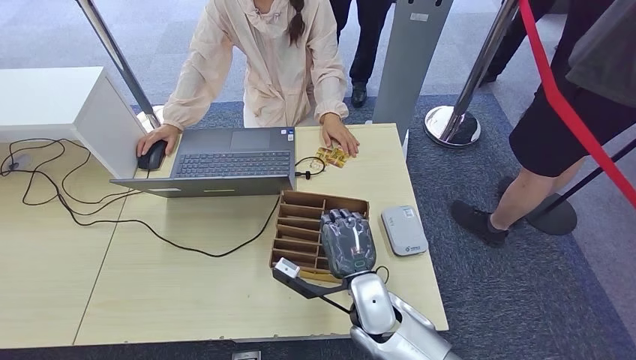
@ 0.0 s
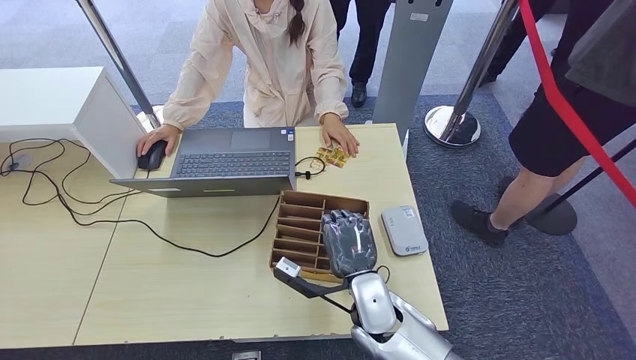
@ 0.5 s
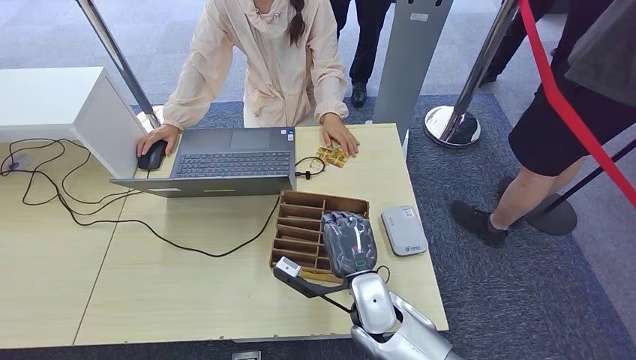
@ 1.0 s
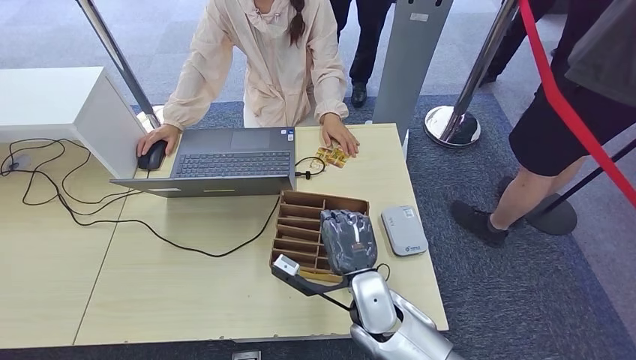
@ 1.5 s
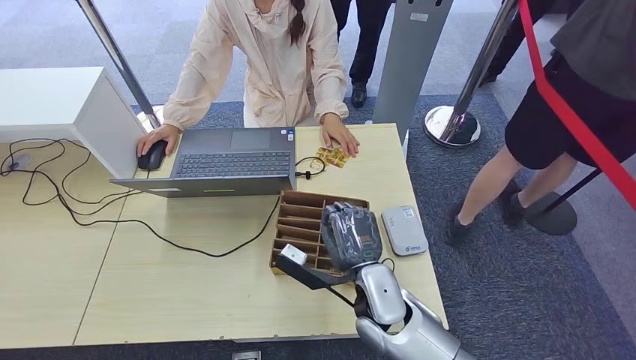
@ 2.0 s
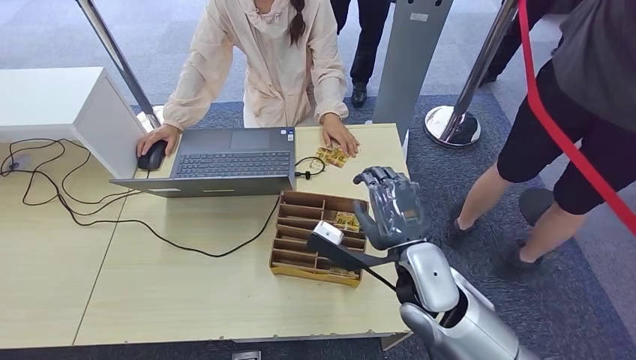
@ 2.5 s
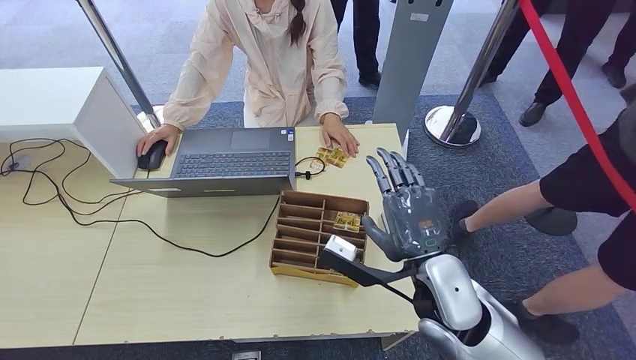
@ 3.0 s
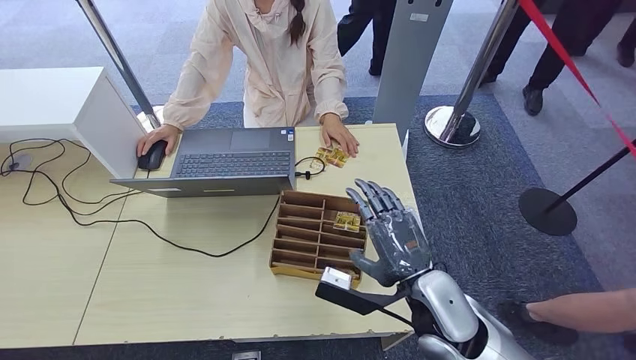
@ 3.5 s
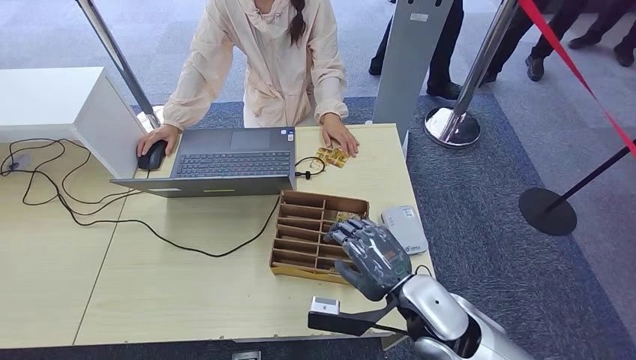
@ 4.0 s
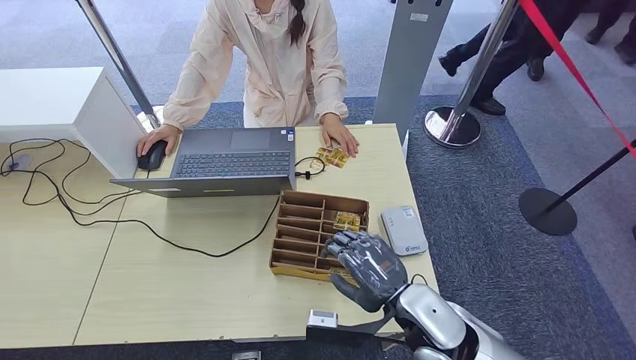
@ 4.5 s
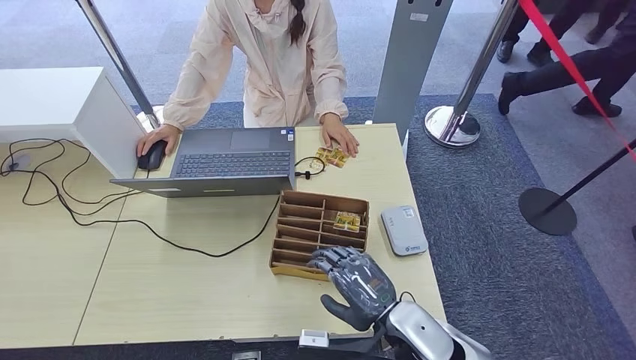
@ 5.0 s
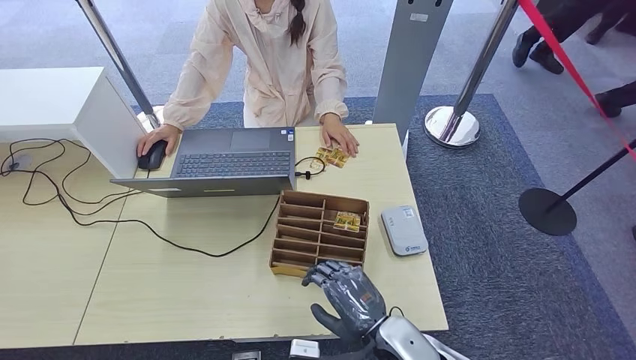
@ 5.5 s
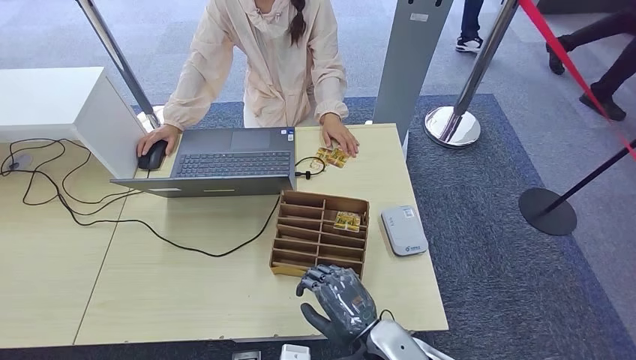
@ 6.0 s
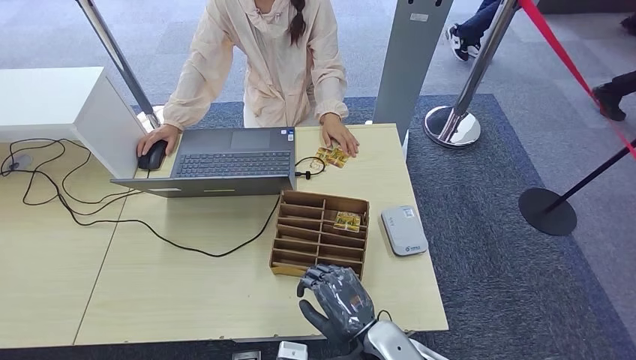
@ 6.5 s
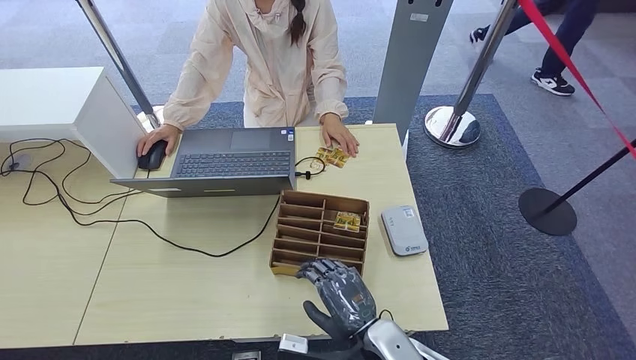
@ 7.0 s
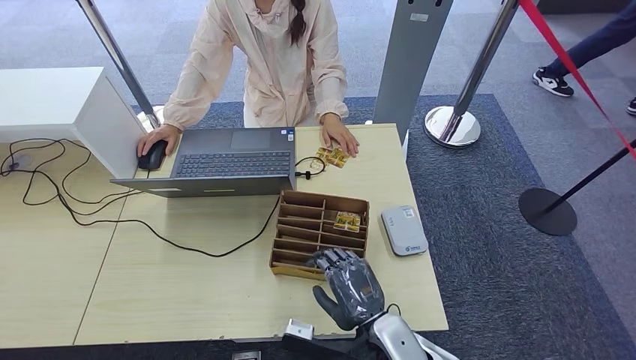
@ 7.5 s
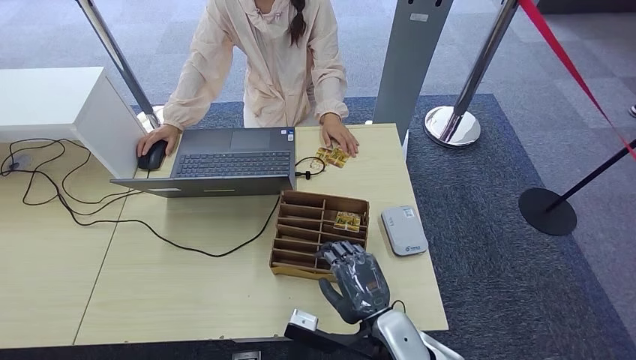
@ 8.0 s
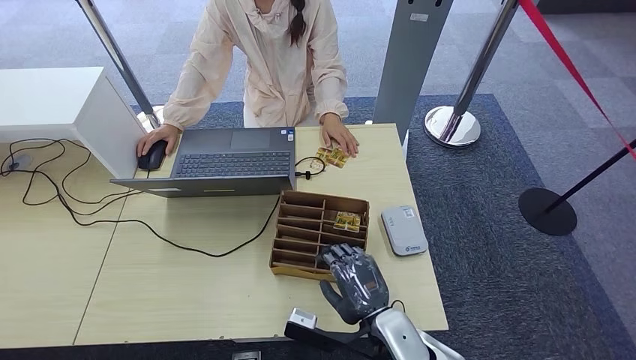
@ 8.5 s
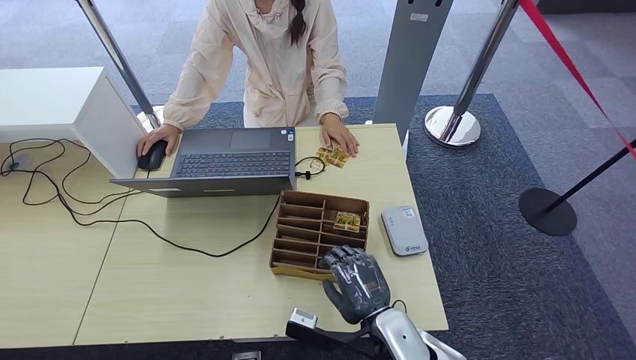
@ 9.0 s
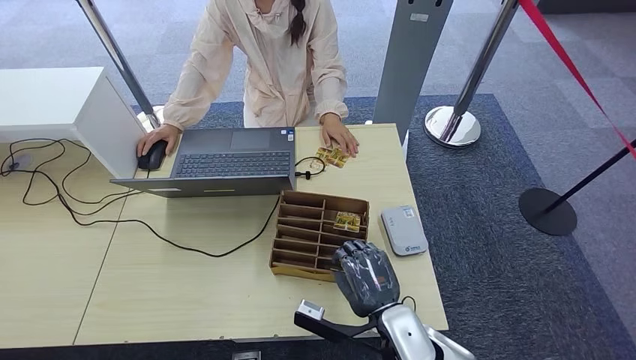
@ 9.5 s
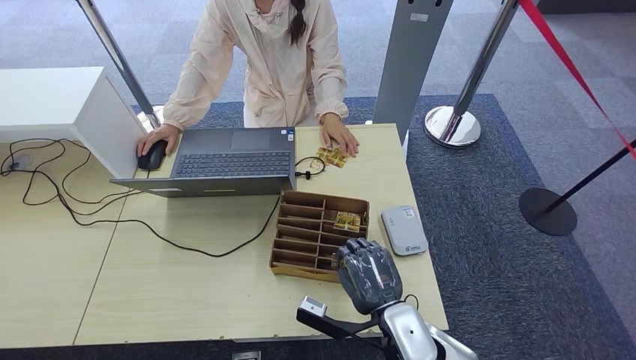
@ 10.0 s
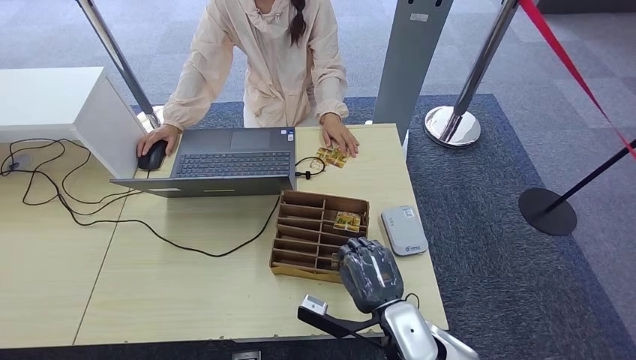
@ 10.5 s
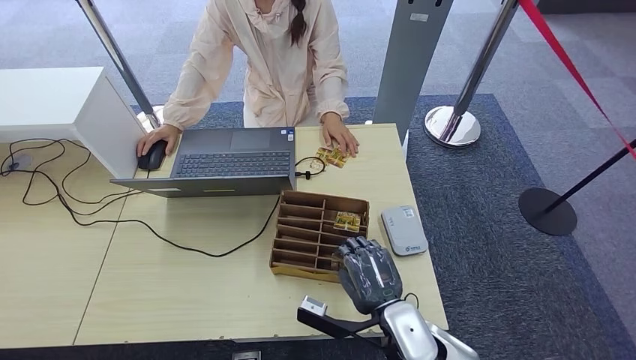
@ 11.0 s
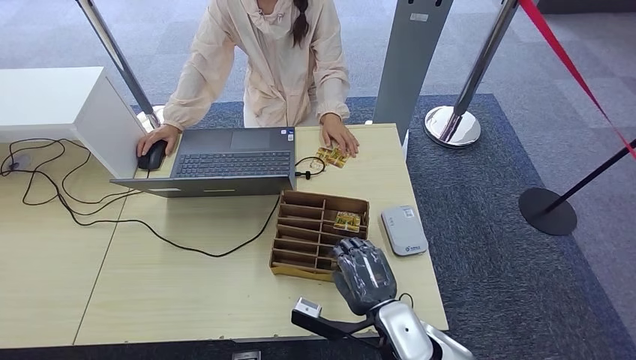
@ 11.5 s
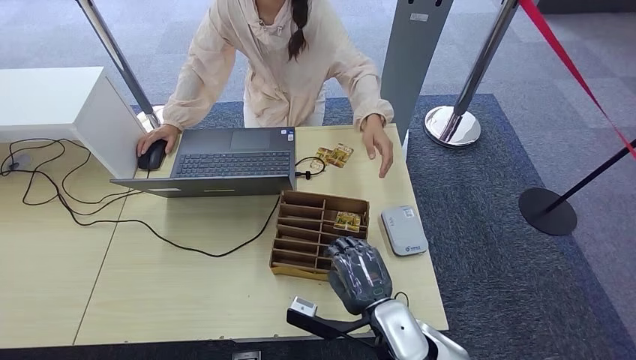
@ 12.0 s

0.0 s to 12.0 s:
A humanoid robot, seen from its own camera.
0.0 to 2.0 s: The hands stay close to where they were, moving slightly.
2.0 to 4.0 s: The right hand goes approximately 5 cm to the right.
4.0 to 6.0 s: The right hand is displaced downward and to the left by approximately 10 cm.
6.0 to 8.0 s: There are only small adjustments of the hands.
8.0 to 12.0 s: The hands stay close to where they were, moving slightly.

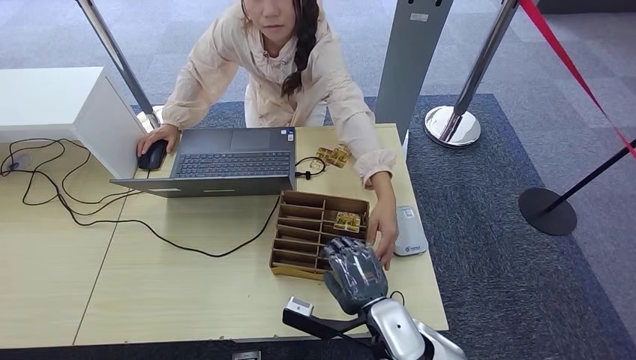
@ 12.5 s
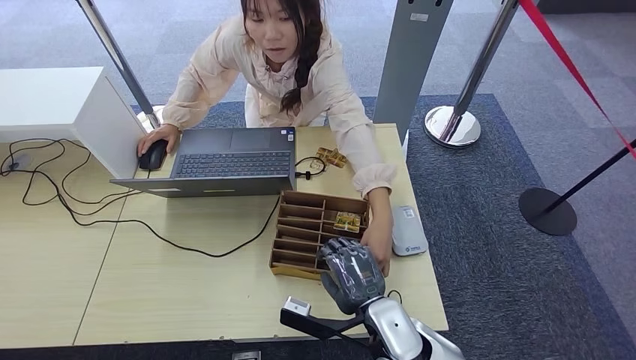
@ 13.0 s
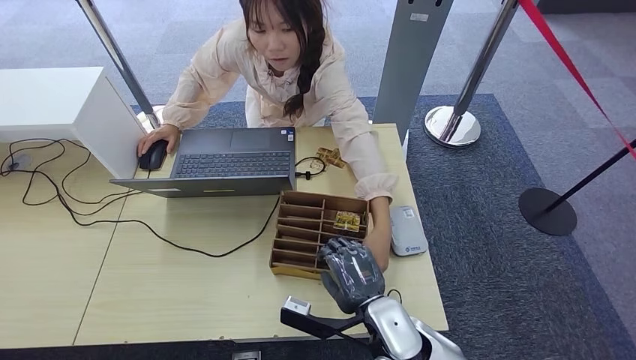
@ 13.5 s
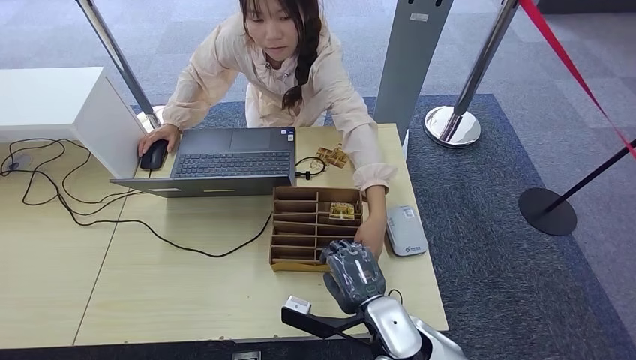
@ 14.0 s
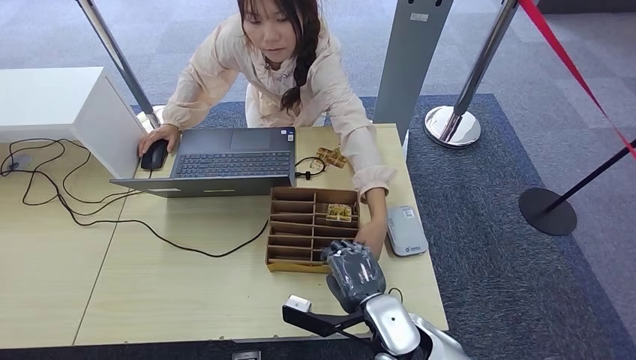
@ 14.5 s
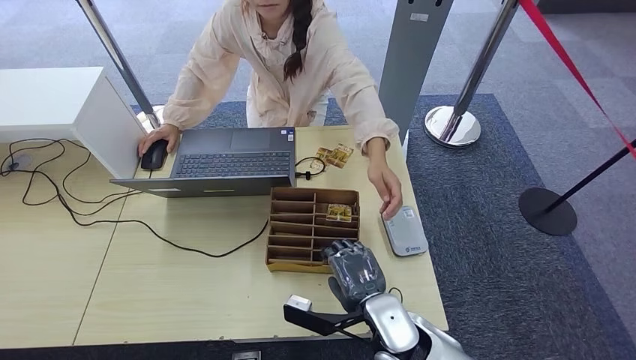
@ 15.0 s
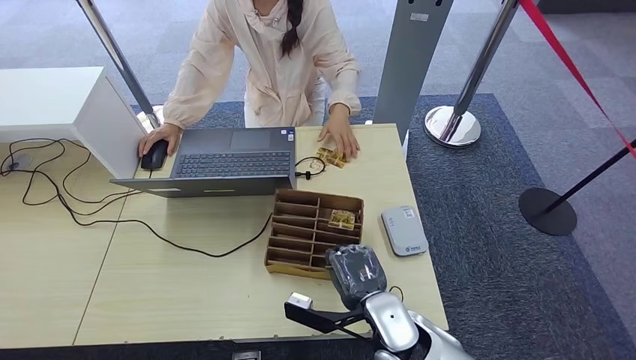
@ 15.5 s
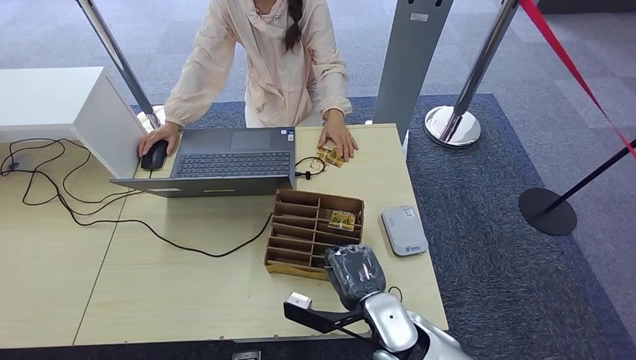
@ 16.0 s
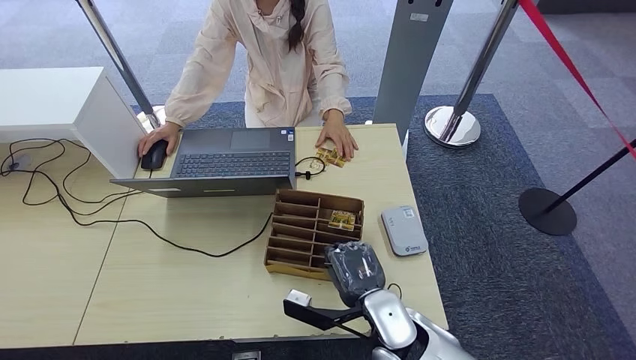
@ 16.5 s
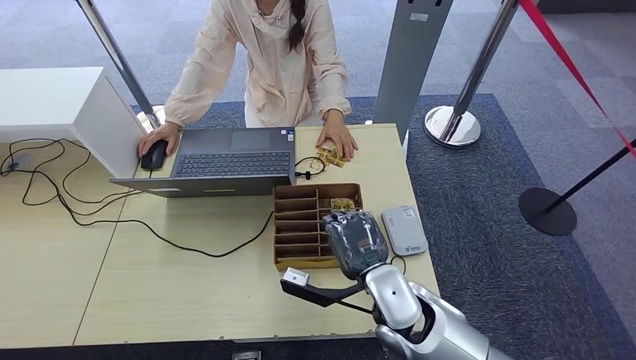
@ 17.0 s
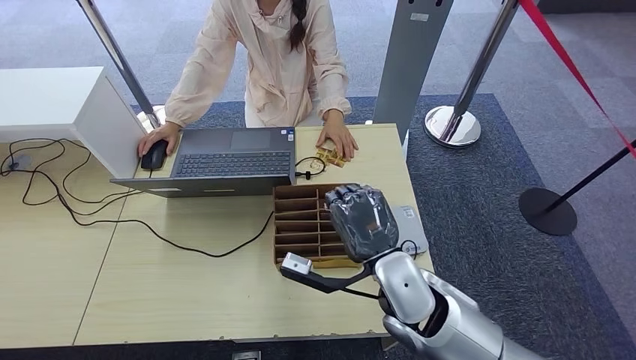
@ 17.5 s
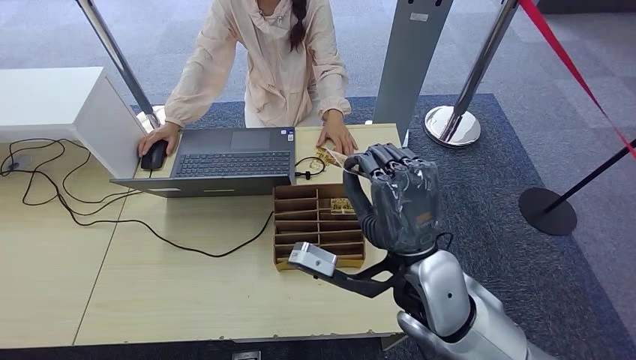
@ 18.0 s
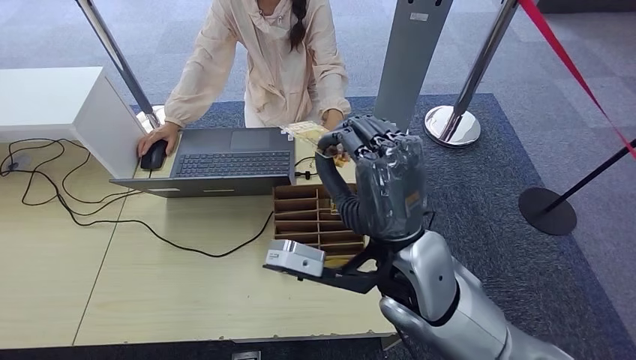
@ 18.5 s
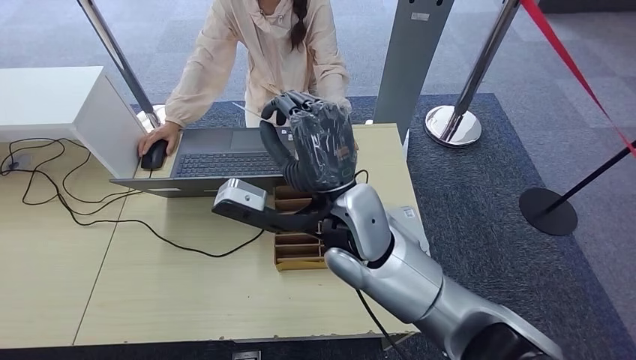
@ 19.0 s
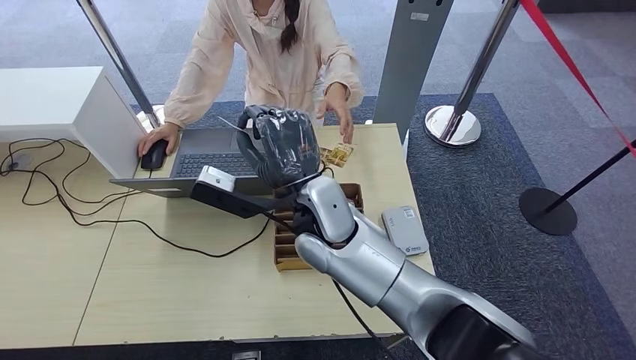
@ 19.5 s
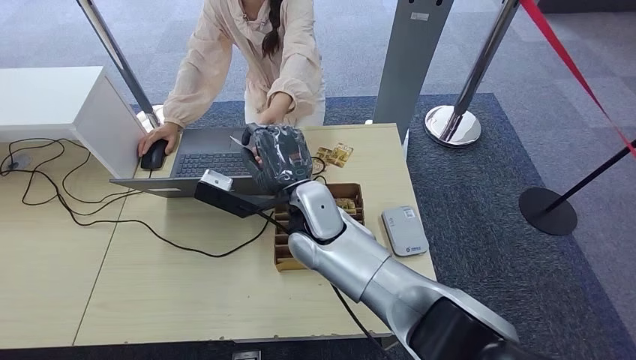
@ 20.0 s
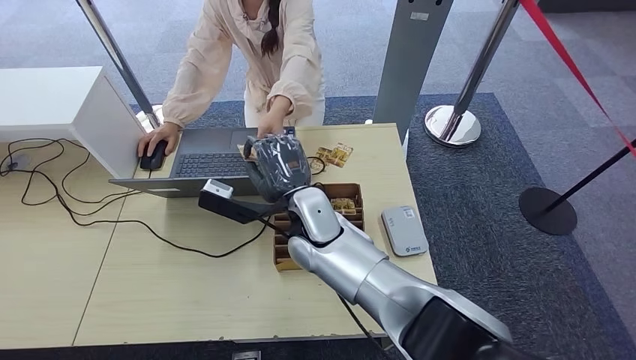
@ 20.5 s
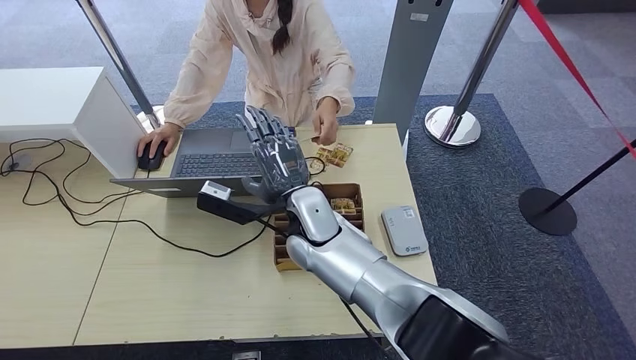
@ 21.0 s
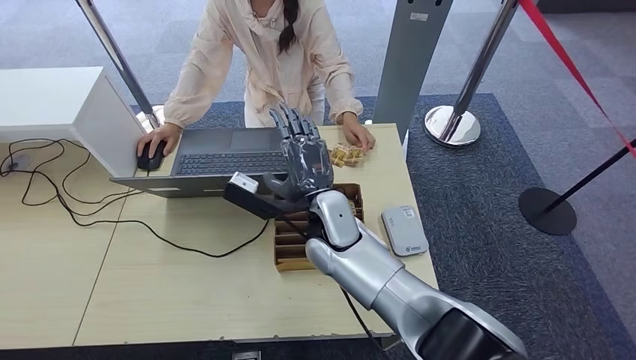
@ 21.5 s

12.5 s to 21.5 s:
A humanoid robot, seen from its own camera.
Step, 12.5 to 17.0 s: Pick up the room key from the key card box.
Step, 18.0 to 21.5 s: Hand the room key to the person.
12.5 to 14.5 s: The hands stay close to where they were, moving slightly.
14.5 to 17.0 s: The right hand ends up some 5 cm from where it was.
17.0 to 19.5 s: The right hand moves upward, to the left and forward, about 20 cm.
19.5 to 21.5 s: The right hand moves downward, approximately 5 cm.
